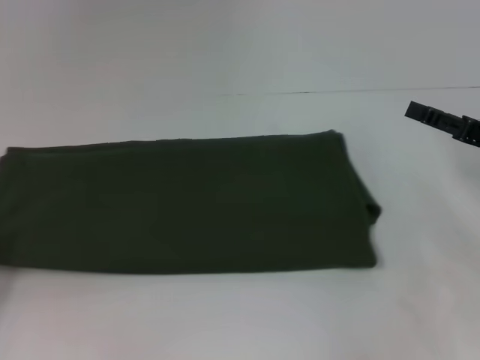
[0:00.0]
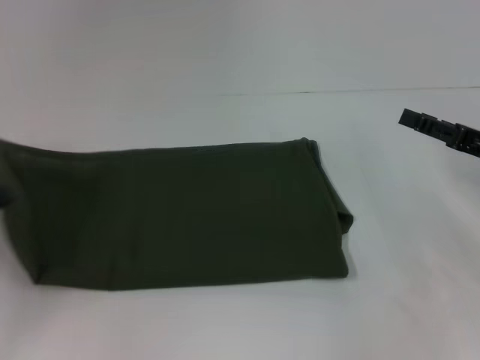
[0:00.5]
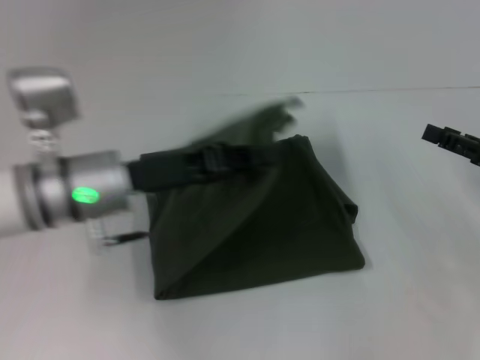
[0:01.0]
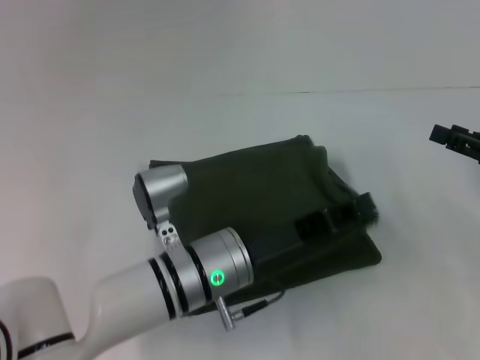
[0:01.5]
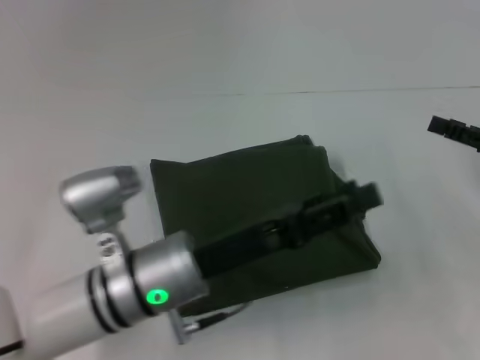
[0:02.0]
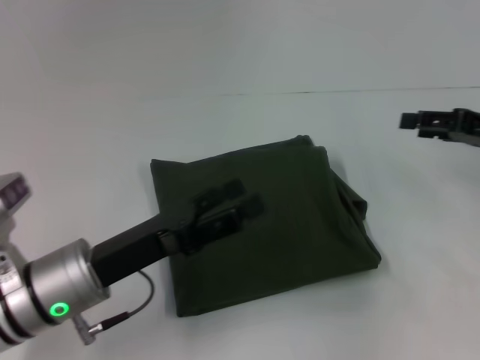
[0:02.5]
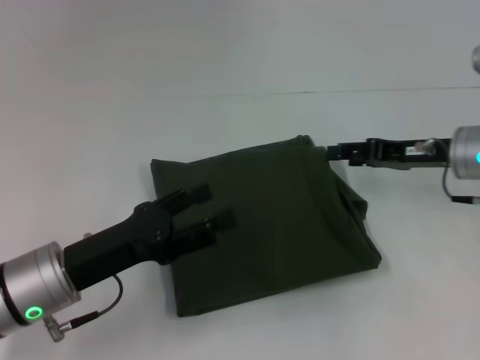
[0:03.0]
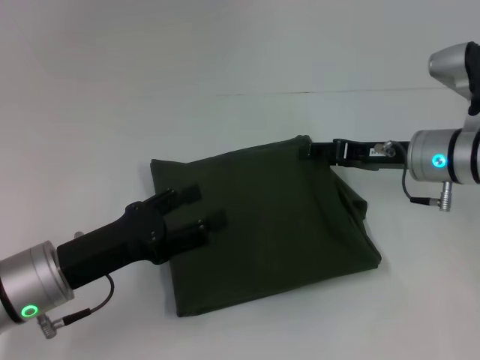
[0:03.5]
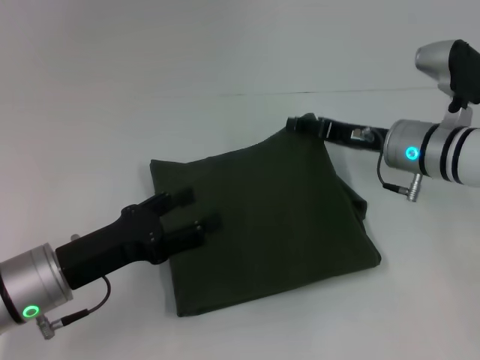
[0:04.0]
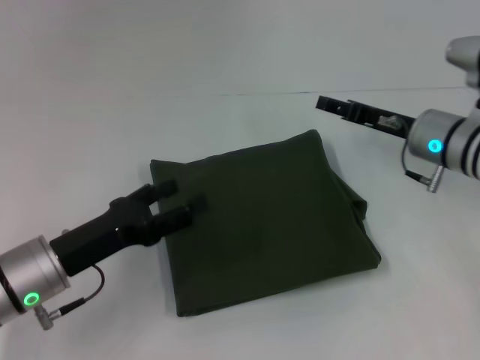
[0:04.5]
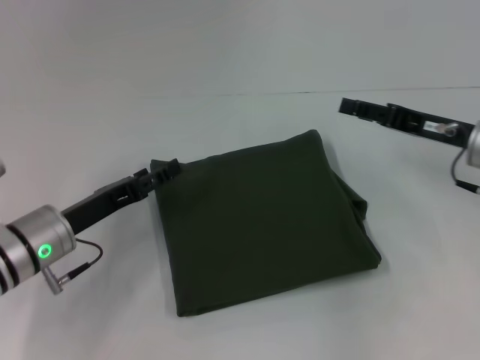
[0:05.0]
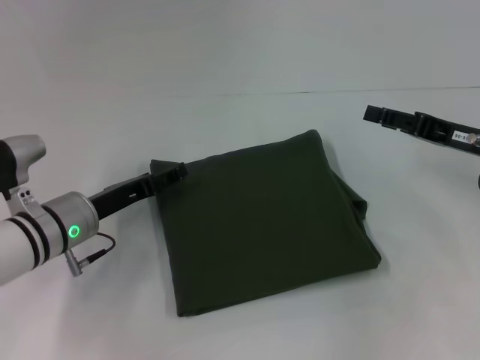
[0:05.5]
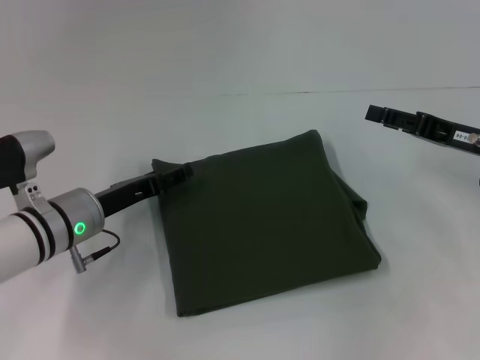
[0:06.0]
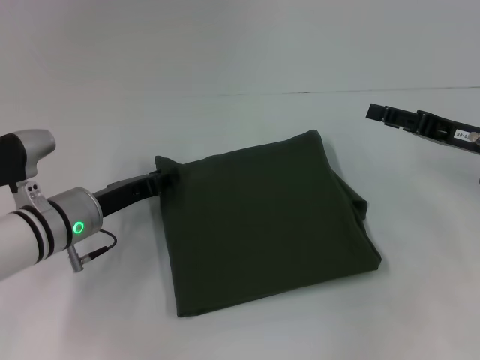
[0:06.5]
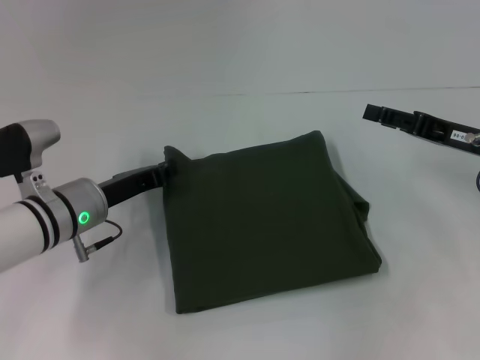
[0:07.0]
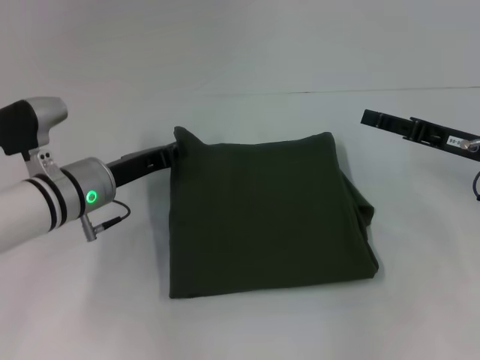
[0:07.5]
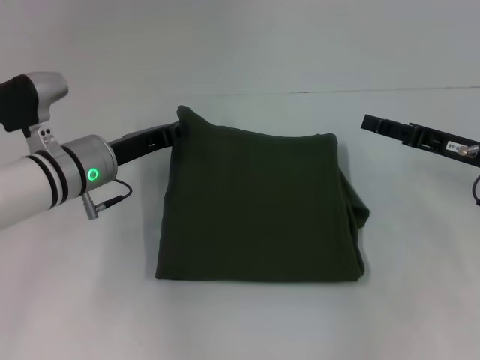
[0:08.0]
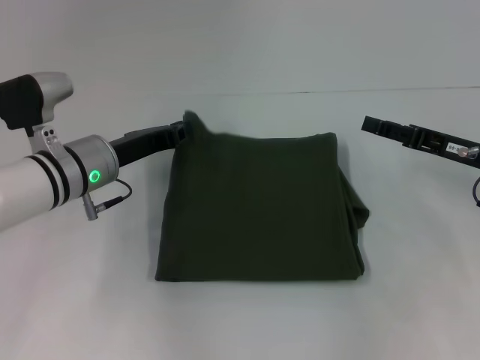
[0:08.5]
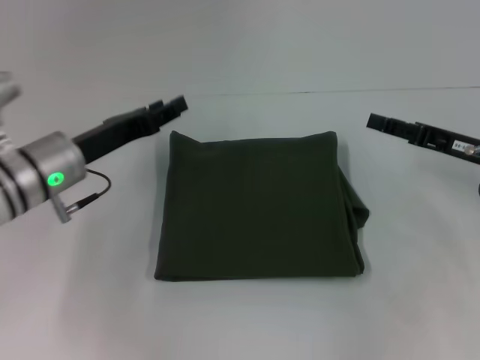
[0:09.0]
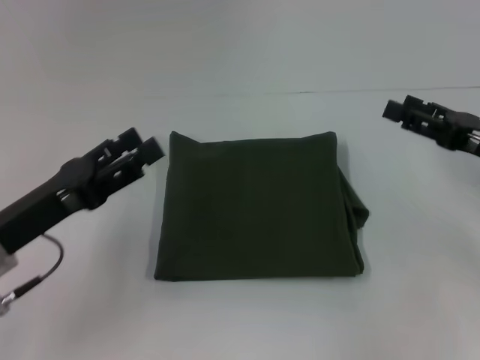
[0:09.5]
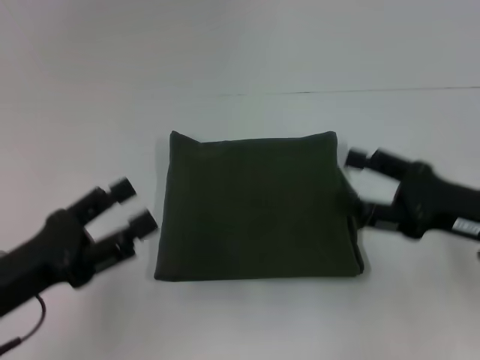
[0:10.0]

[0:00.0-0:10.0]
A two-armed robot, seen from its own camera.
0:00.0 to 0:02.0: The left gripper goes about 30 cm to the right, and opens its fingers.
0:02.0 to 0:04.0: The right gripper travels to the left and forward by some 20 cm; the left gripper shifts about 15 cm to the left, and opens.
0:04.0 to 0:06.0: The left gripper is displaced forward by roughly 10 cm. Meanwhile the right gripper is displaced to the right by approximately 10 cm.
0:06.0 to 0:08.0: The left gripper shifts by approximately 5 cm, and closes its fingers.
0:08.0 to 0:10.0: The left gripper is displaced backward and to the left by approximately 20 cm, and opens up. The right gripper is displaced backward by some 10 cm.

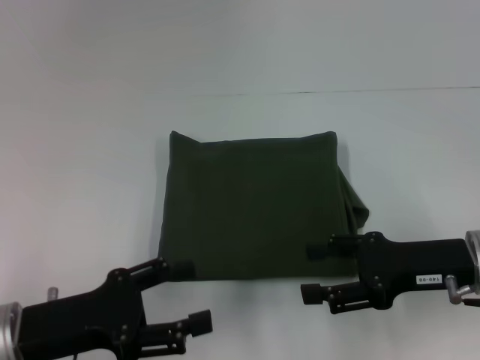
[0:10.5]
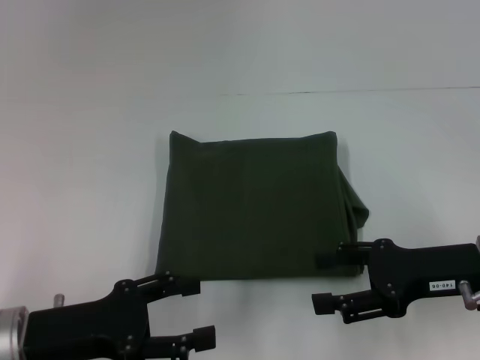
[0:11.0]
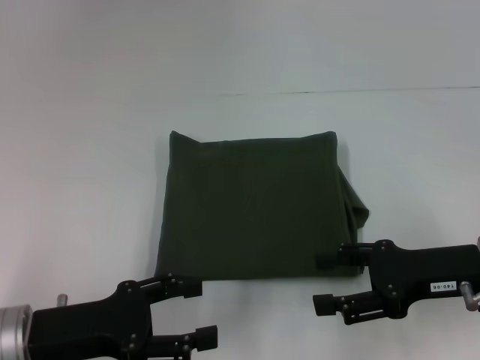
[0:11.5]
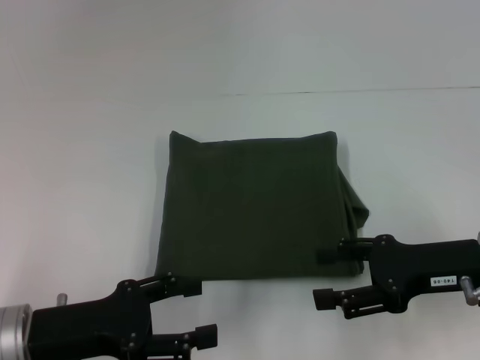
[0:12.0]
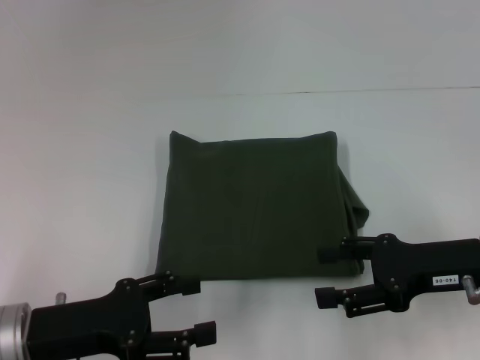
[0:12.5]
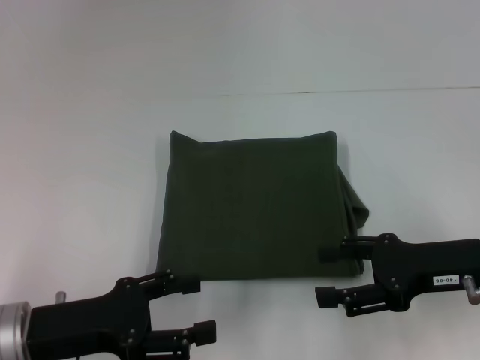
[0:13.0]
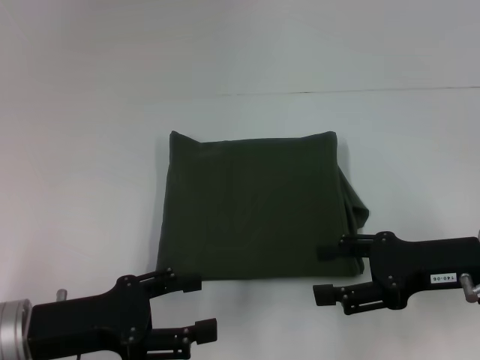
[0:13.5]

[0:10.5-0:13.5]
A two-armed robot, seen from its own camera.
0:10.5 to 0:12.0: The grippers move only a little.
0:12.0 to 0:13.5: Neither gripper changes place.

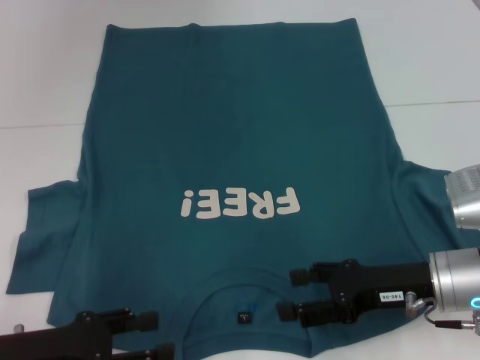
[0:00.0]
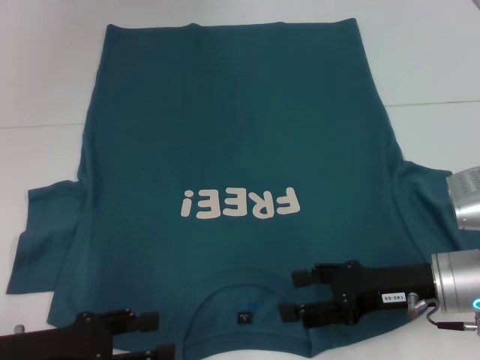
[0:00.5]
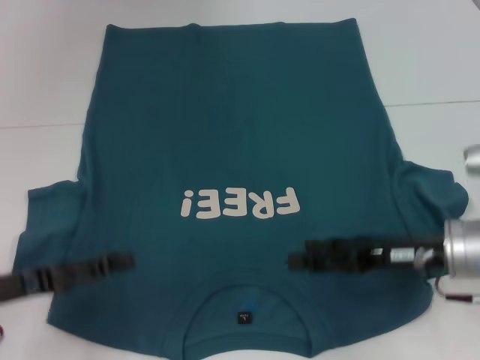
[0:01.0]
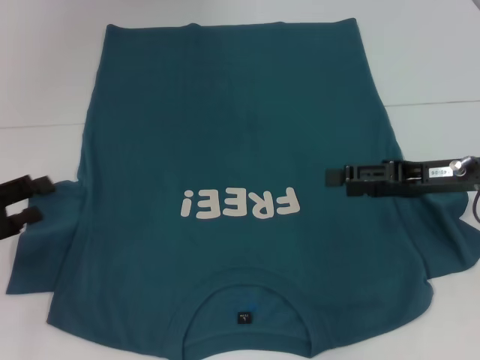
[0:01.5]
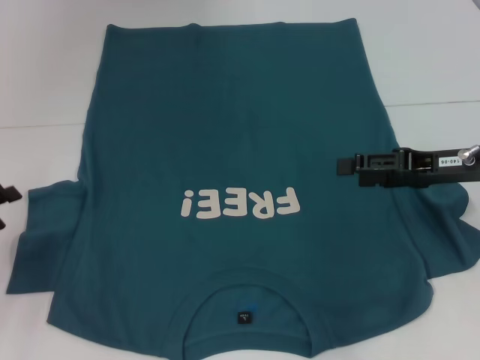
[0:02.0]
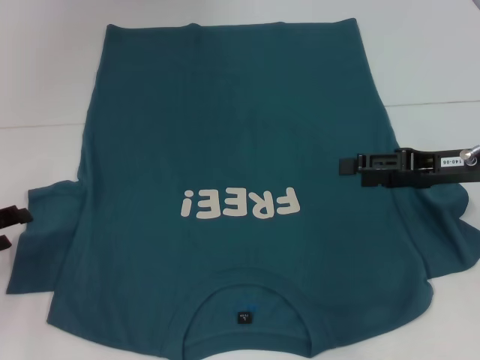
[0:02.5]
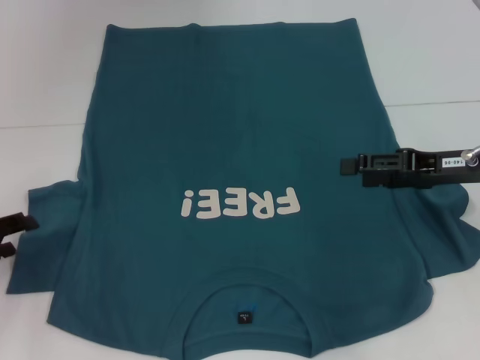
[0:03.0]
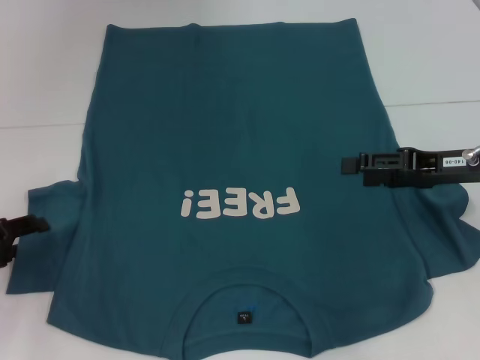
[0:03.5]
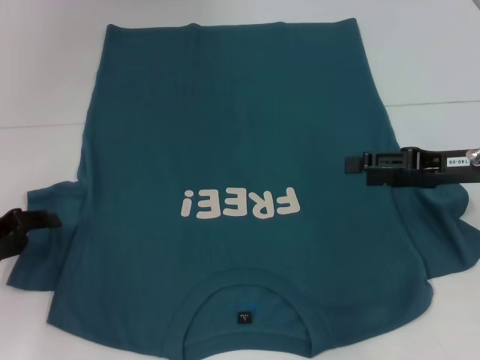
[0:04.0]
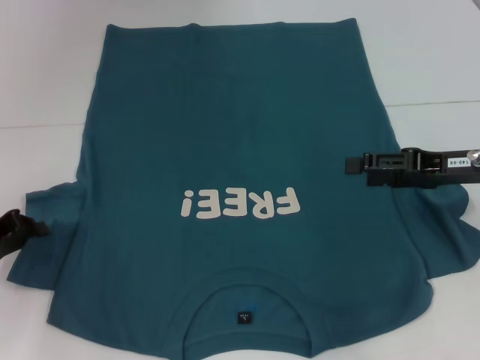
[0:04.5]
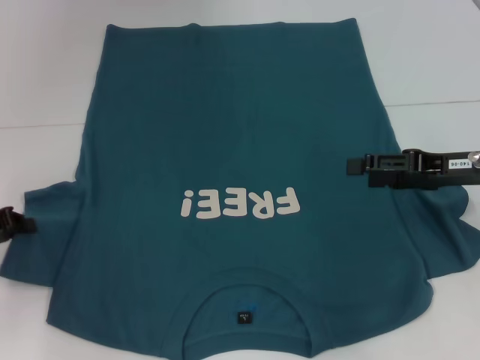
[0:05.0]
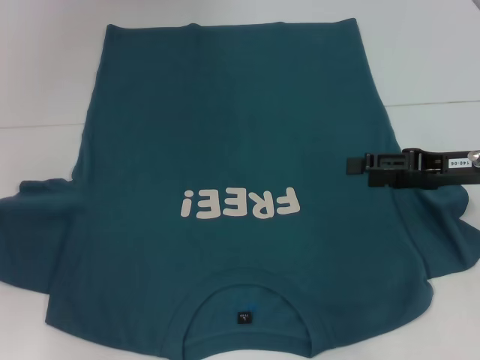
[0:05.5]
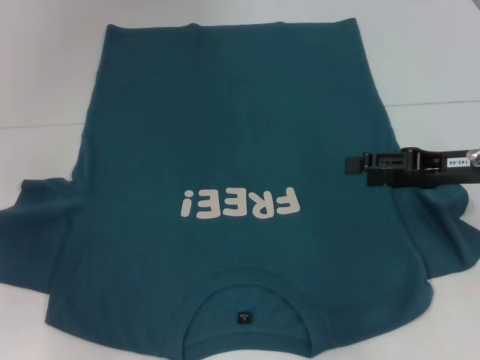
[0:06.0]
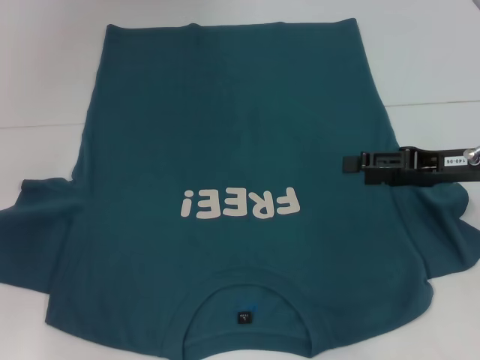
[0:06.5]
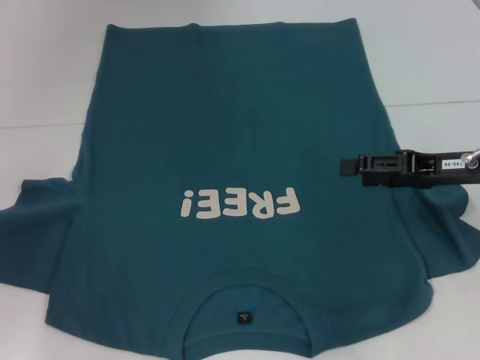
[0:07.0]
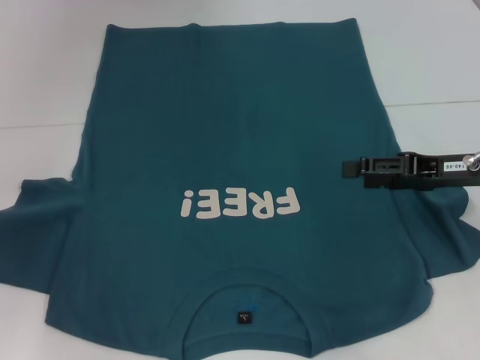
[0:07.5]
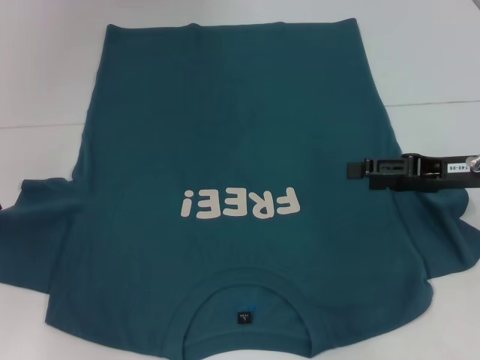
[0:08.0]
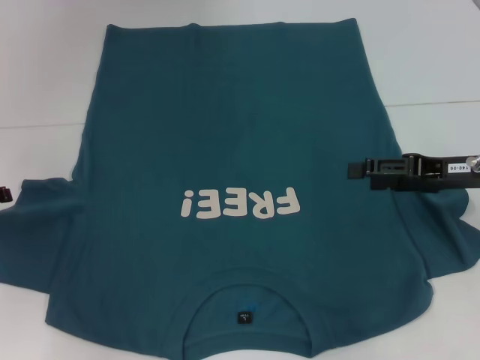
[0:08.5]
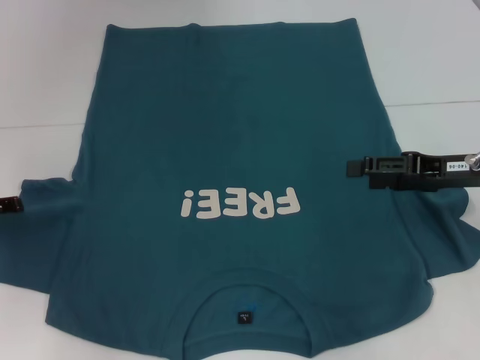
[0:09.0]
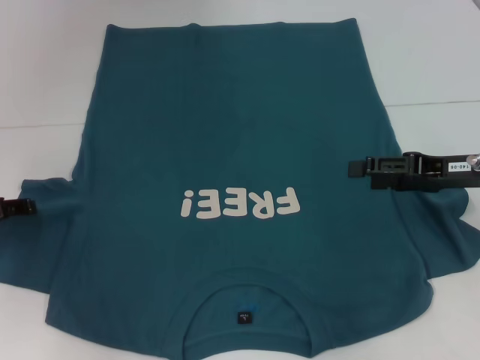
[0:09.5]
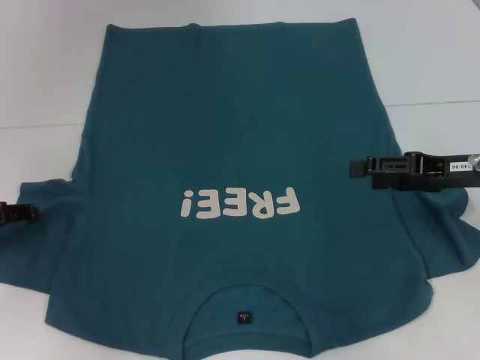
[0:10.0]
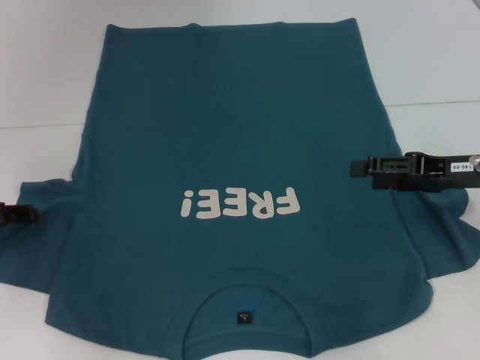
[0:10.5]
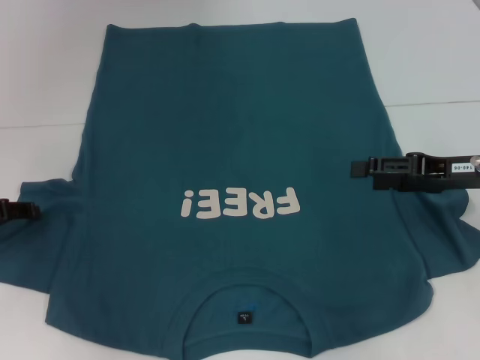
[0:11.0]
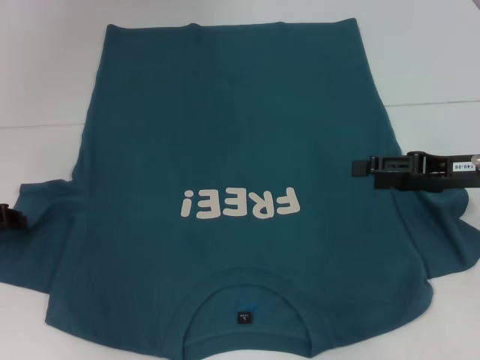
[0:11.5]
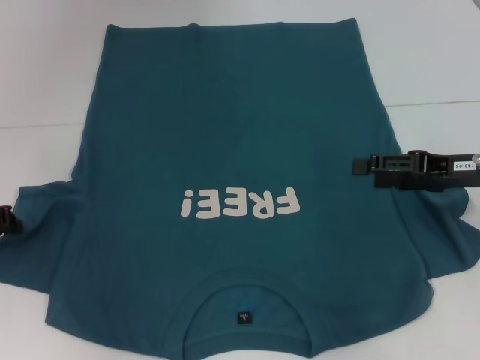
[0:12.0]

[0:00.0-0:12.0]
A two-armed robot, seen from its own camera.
0:00.0 to 0:02.0: The left gripper goes about 15 cm to the left and forward; the right gripper is displaced upward, forward and to the right by approximately 10 cm.
0:02.0 to 0:04.0: The grippers move only a little.
0:04.0 to 0:06.0: The left gripper changes place by approximately 5 cm, and closes up.
0:06.0 to 0:08.0: The grippers move only a little.
